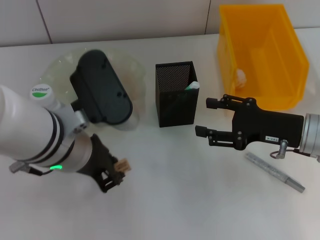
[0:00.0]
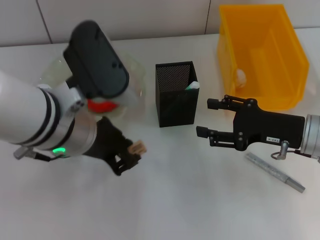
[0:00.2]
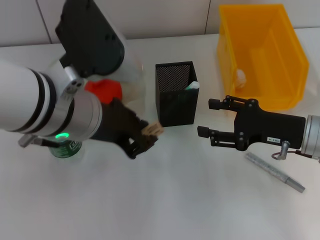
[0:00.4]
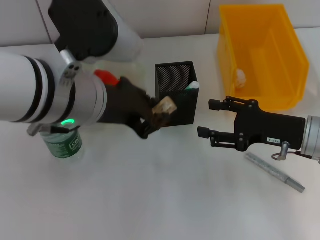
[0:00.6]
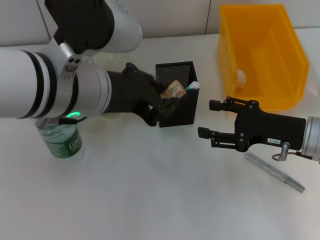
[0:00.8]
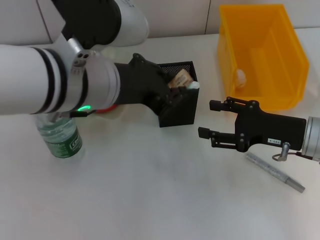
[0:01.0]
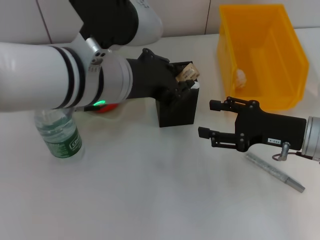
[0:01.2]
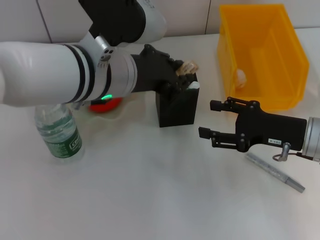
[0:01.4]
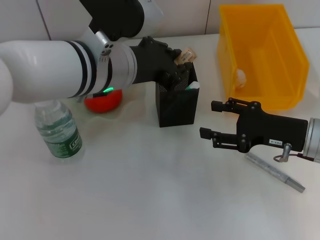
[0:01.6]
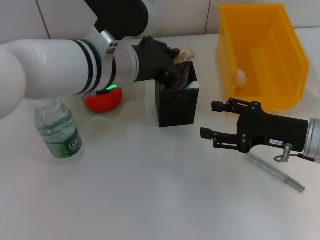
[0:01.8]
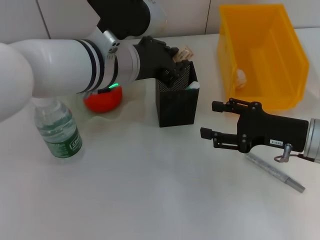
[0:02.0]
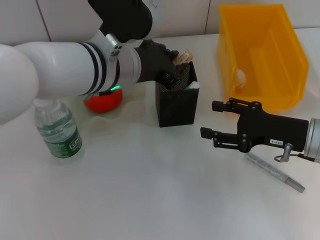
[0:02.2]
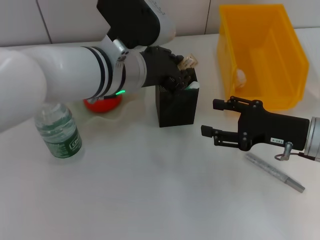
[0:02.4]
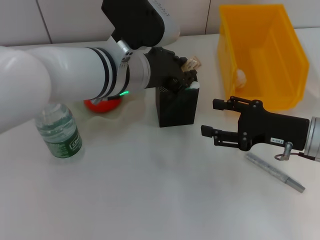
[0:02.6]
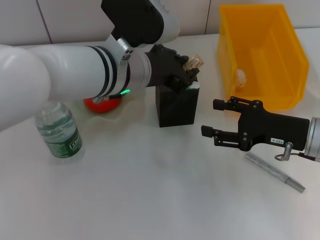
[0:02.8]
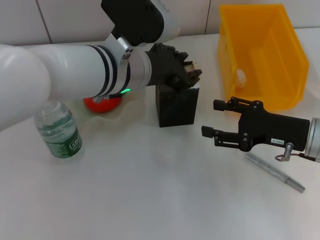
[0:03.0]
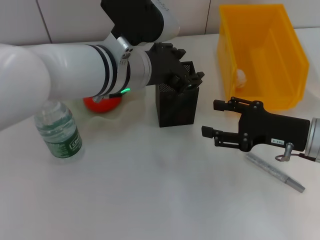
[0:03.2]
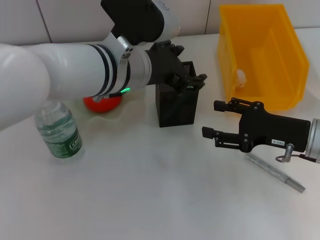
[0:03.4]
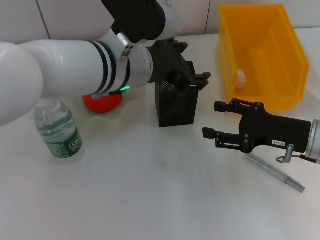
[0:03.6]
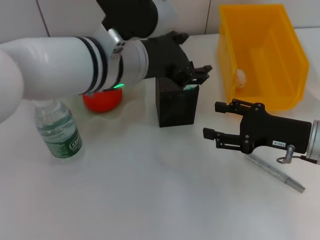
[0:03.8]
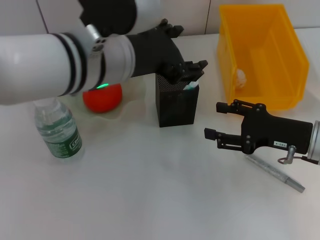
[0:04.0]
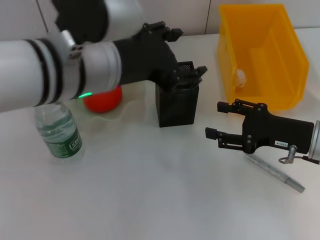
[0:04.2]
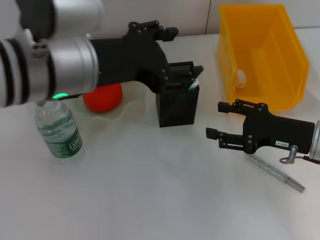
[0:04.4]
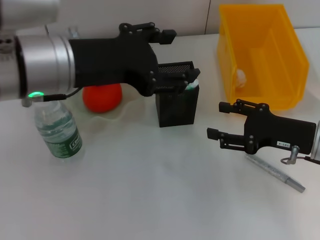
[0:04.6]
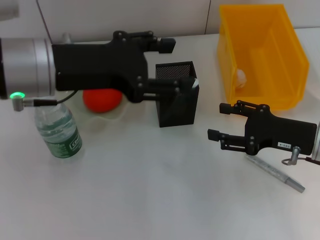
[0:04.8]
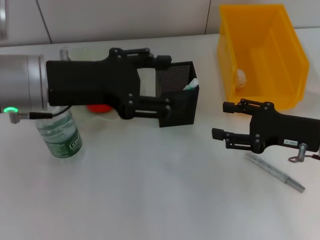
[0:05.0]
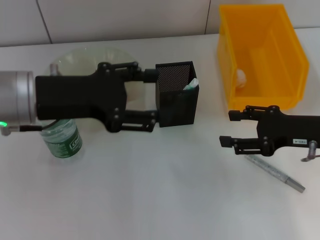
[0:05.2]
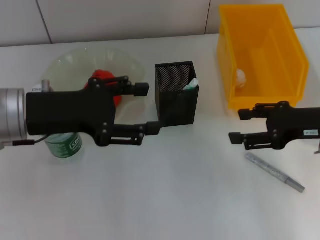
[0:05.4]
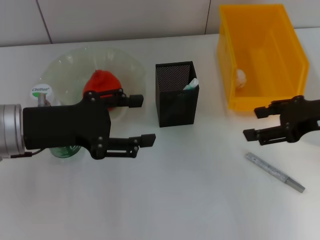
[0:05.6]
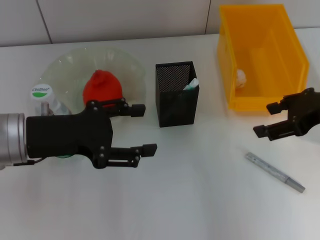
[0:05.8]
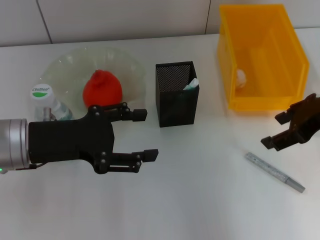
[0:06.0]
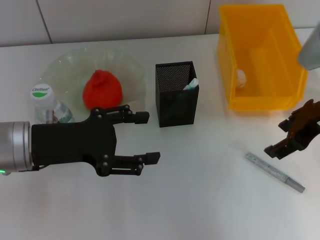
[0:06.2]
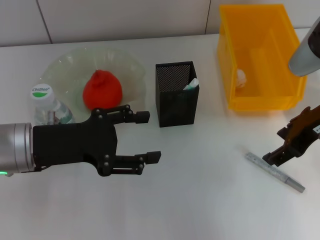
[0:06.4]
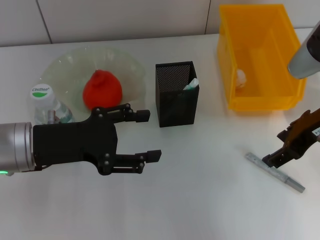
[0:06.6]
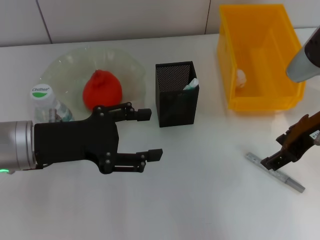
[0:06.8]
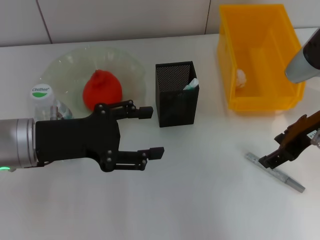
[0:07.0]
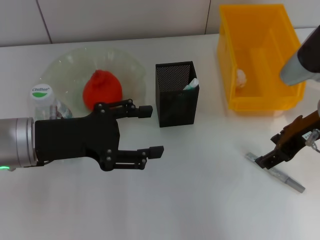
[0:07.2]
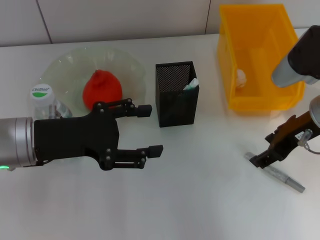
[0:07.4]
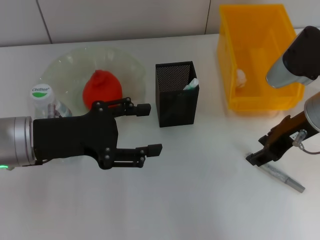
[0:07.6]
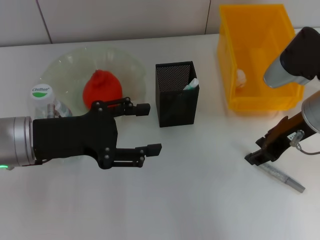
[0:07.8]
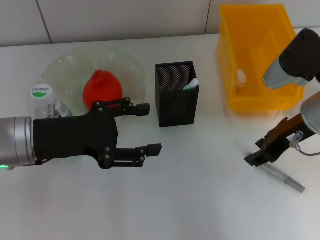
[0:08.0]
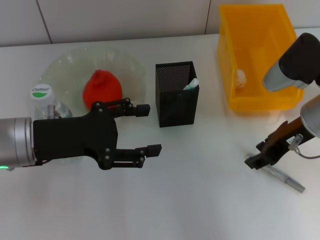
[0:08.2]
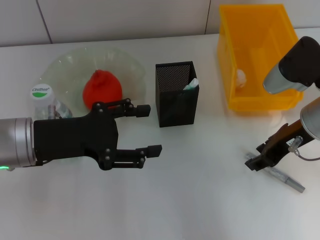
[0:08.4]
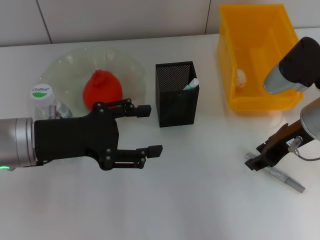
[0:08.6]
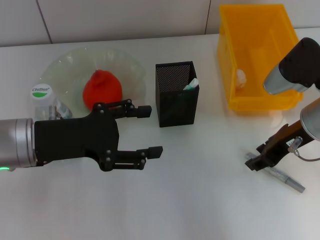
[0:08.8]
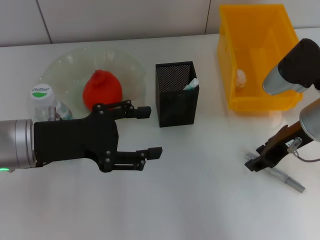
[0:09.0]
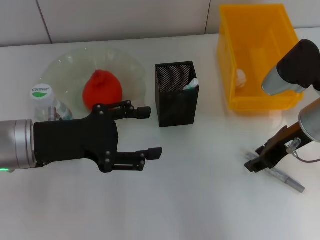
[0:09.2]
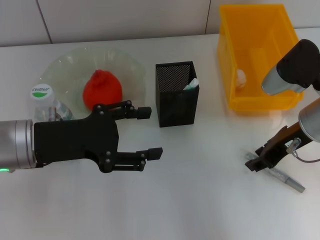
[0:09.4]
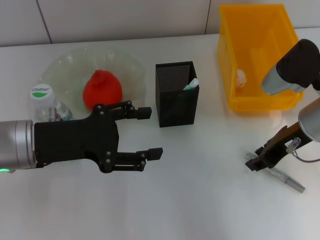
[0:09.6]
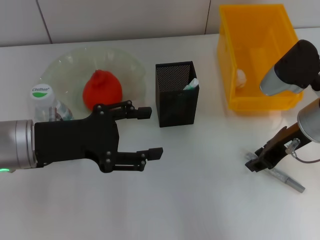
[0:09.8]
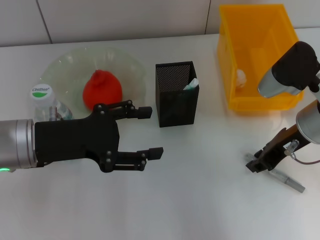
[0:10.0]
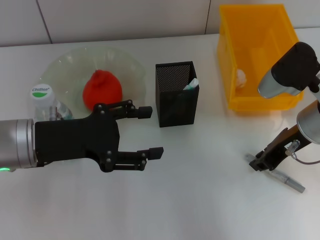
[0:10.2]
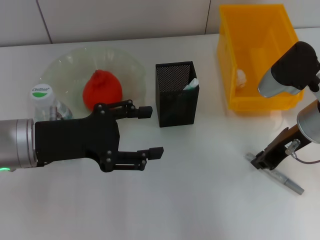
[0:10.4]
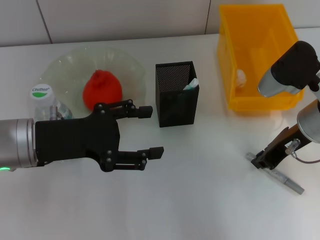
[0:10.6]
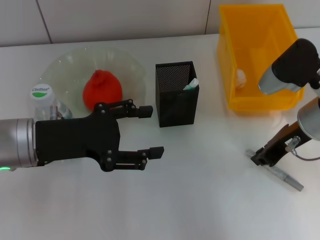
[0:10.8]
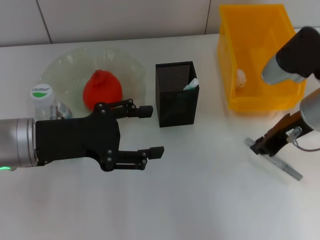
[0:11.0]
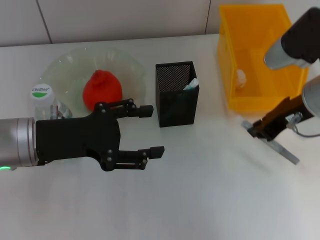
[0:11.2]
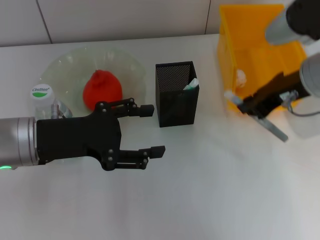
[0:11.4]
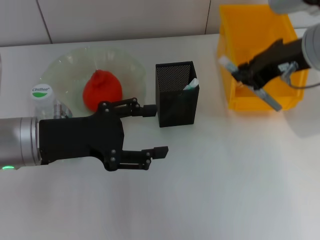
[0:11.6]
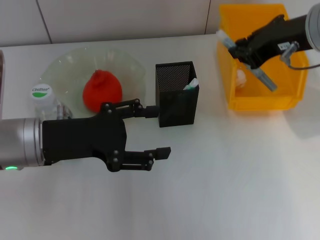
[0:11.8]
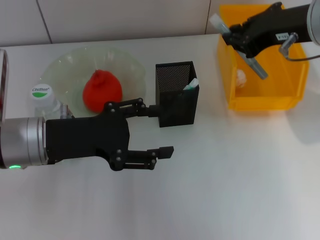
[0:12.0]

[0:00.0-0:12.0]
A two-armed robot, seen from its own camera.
Step, 0:00.0 to 0:03.4: Place the eraser into the pen holder with the left hand.
Step, 0:03.6 to 0:10.4: Grab the gray glue with the right hand.
0:00.0 to 0:01.6: The left gripper shifts about 5 cm forward.
0:01.6 to 0:03.0: The grippers stay close to where they were, moving slightly.
0:03.0 to 0:04.4: The left gripper goes approximately 10 cm to the left, upward and backward, and opens.
0:04.4 to 0:06.0: The right gripper shifts about 15 cm upward. The left gripper is displaced downward and to the left by roughly 15 cm.
0:06.0 to 0:07.6: The right gripper ends up roughly 5 cm from where it was.
0:07.6 to 0:09.0: The grippers move only a little.
0:09.0 to 0:10.4: The right gripper closes up.
0:10.4 to 0:12.0: The right gripper is displaced upward by some 15 cm.

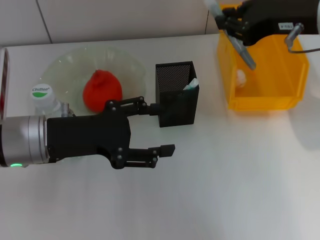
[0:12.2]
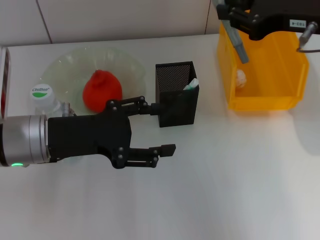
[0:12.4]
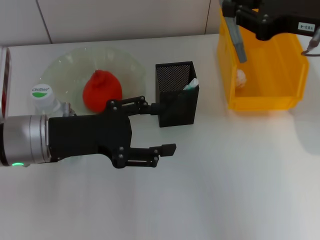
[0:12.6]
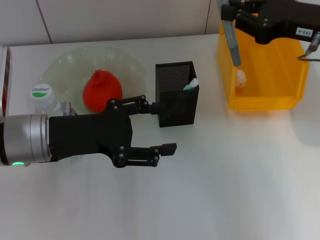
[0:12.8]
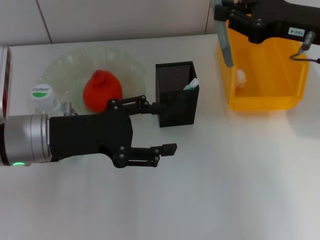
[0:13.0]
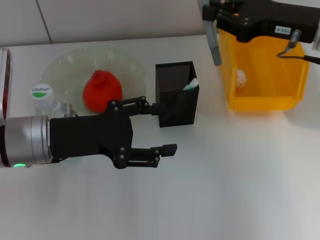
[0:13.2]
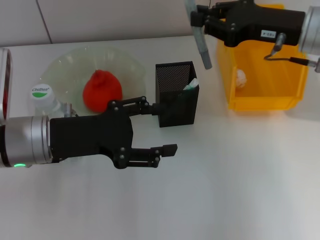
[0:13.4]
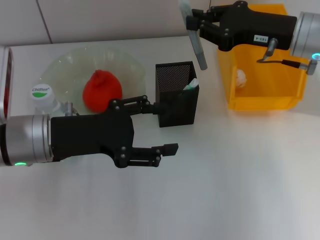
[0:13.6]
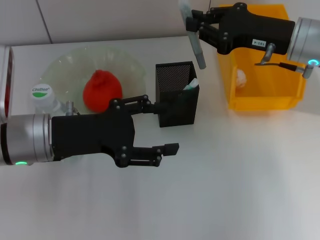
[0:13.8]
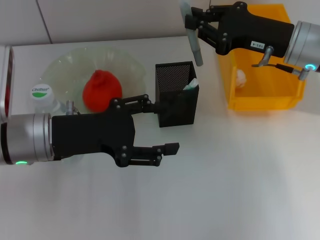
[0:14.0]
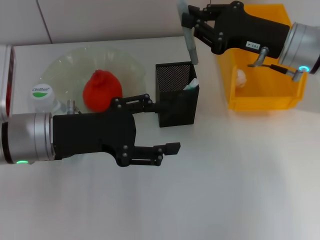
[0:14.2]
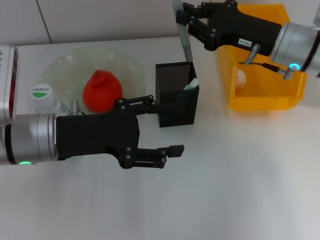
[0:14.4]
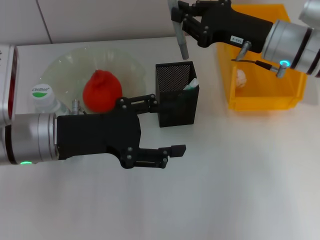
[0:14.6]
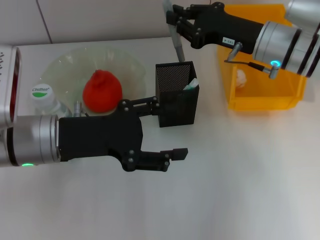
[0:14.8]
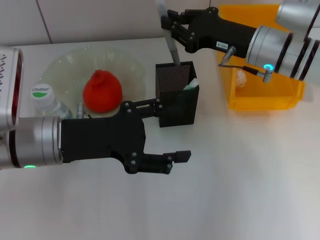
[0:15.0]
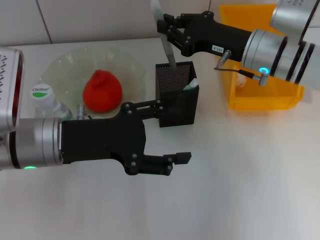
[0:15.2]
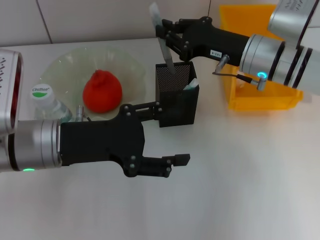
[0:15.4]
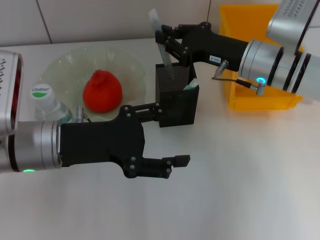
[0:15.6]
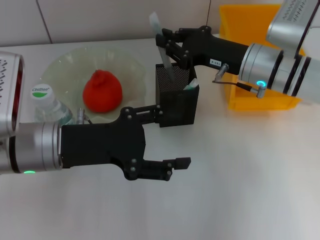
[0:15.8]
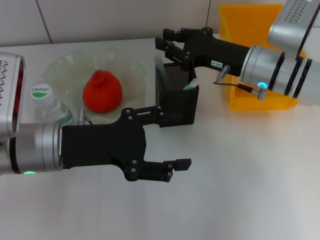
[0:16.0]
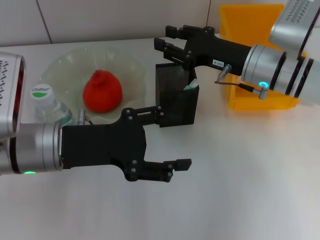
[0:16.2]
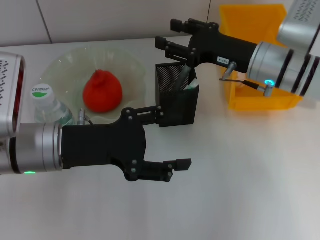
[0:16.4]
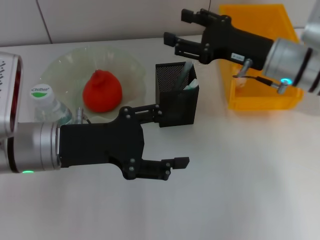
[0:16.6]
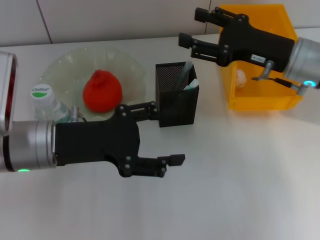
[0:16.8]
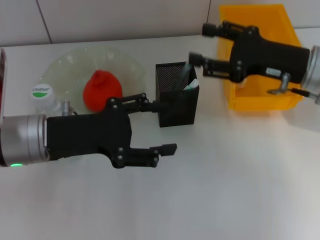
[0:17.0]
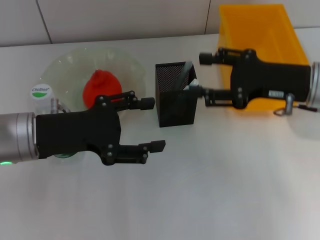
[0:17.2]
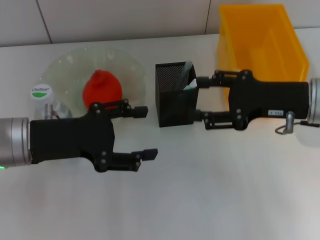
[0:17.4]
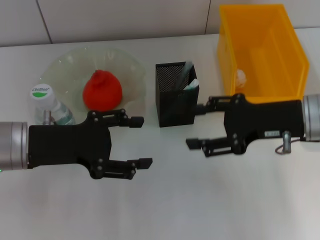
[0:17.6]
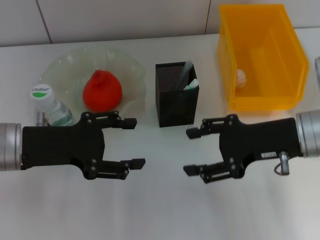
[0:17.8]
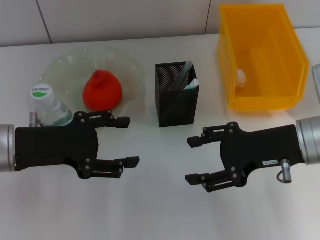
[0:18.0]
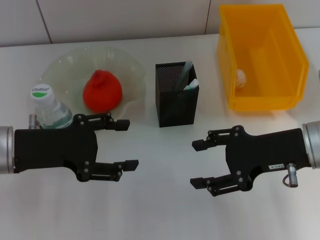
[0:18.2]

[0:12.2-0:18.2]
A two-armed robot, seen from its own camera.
Step, 0:12.2 to 0:16.2: Place the gray glue into the pen holder with the right hand.
0:12.2 to 0:13.8: The right gripper shifts about 10 cm downward and forward.
0:13.8 to 0:15.2: The right gripper ends up approximately 5 cm from where it was.
0:15.2 to 0:16.6: The right gripper opens.
0:16.6 to 0:18.2: The left gripper goes roughly 5 cm to the left; the right gripper is displaced backward by roughly 10 cm.

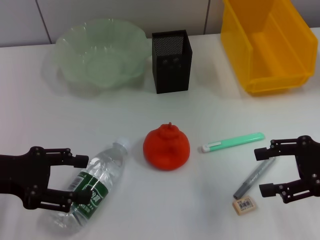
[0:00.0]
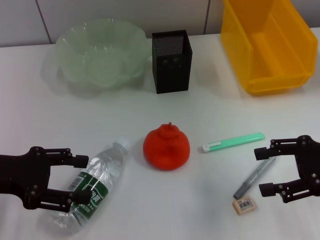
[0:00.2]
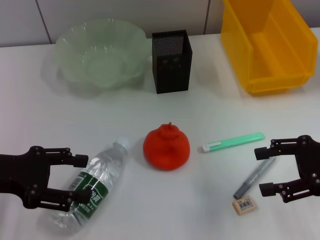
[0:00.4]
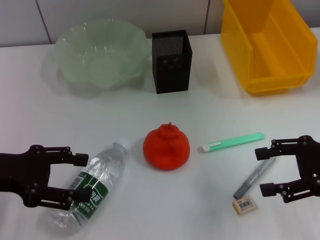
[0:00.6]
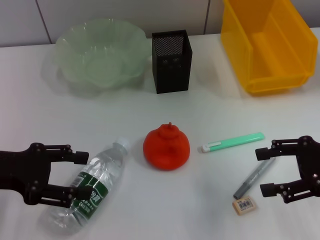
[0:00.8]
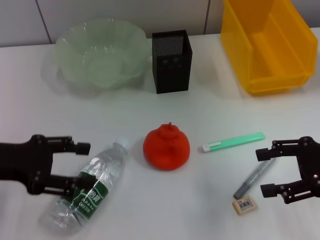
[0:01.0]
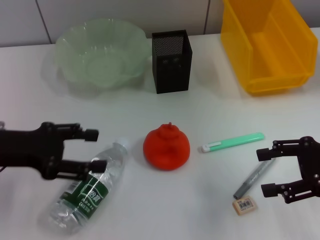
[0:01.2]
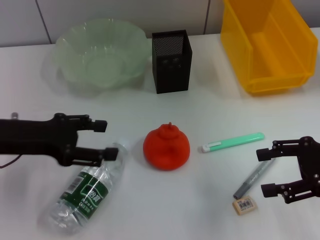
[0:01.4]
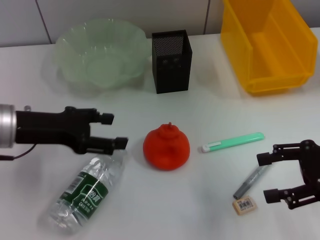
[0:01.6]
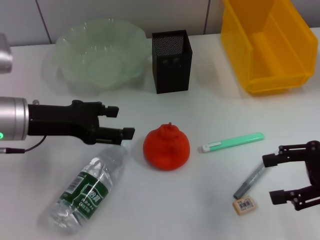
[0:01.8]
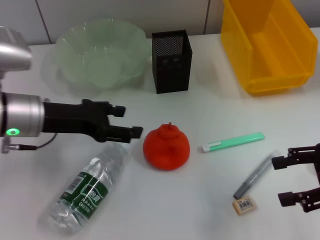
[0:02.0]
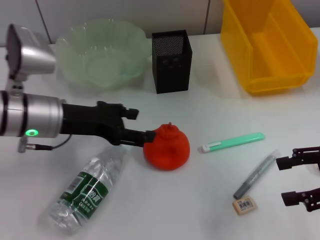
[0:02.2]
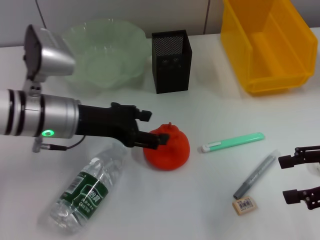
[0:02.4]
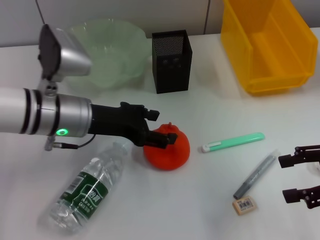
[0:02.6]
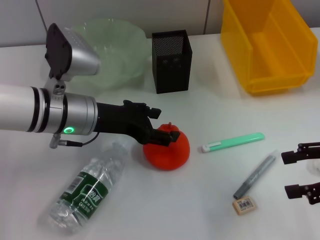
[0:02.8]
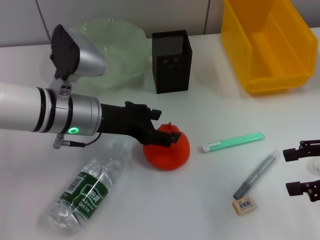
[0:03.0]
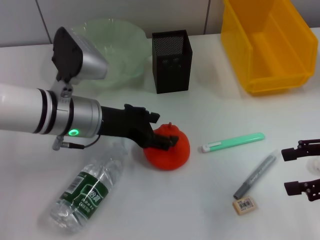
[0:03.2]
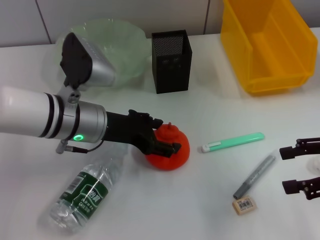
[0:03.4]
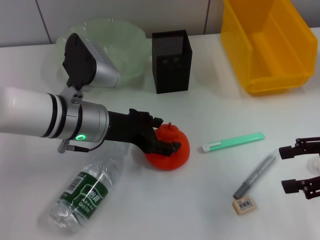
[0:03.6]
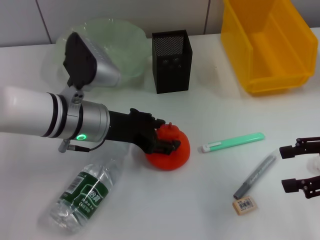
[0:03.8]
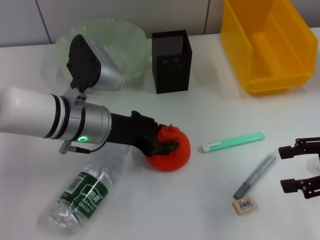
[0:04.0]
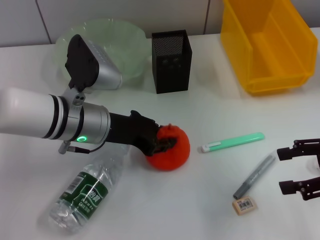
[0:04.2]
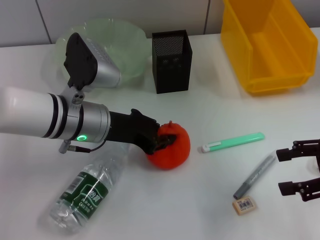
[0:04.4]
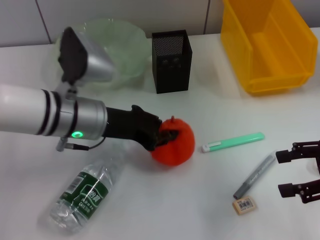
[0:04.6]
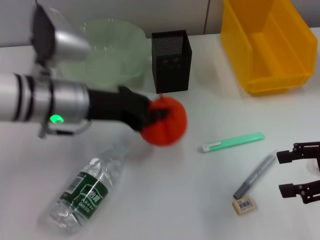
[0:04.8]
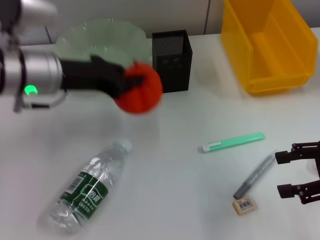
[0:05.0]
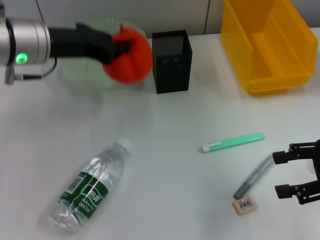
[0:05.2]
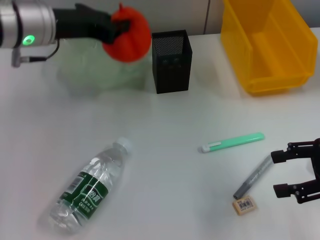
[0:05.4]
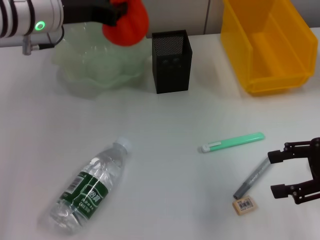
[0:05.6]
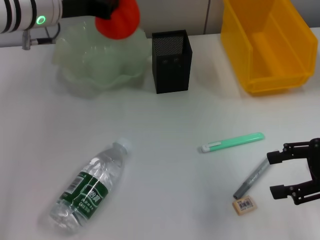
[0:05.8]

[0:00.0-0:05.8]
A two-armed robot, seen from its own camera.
Step, 0:00.0 to 0:04.2: Grab the orange with the left hand.
0:00.0 to 0:01.4: The grippers stay close to where they were, moving slightly.
0:01.4 to 0:02.8: The left gripper moves to the right, about 10 cm.
0:02.8 to 0:04.4: The left gripper closes up.
0:04.4 to 0:05.8: The left gripper shifts approximately 15 cm upward and forward.
